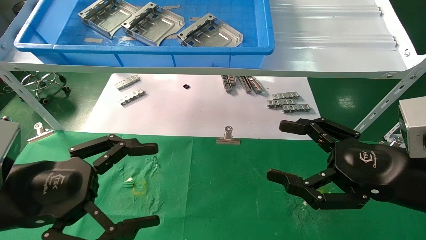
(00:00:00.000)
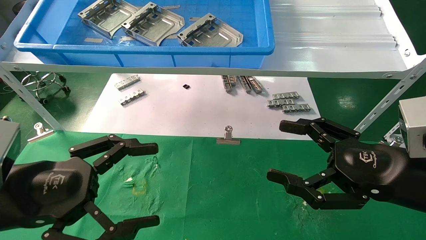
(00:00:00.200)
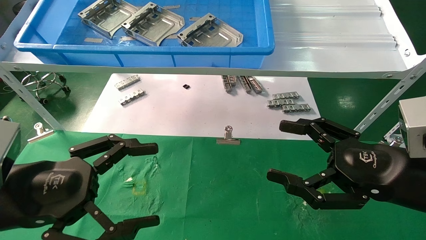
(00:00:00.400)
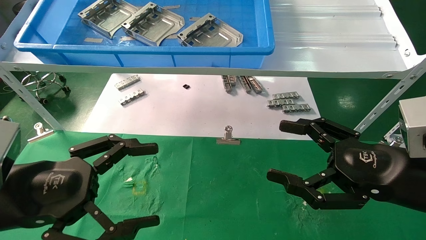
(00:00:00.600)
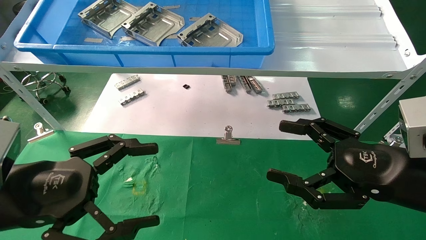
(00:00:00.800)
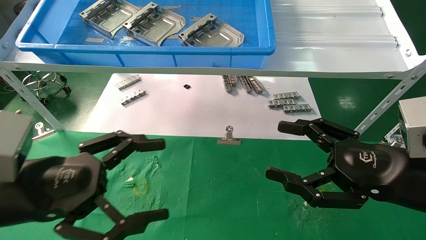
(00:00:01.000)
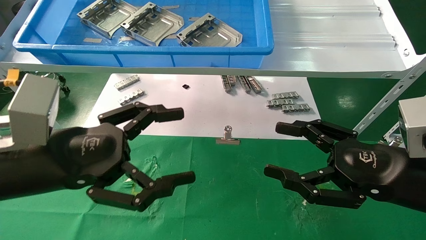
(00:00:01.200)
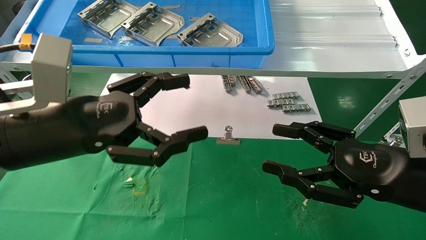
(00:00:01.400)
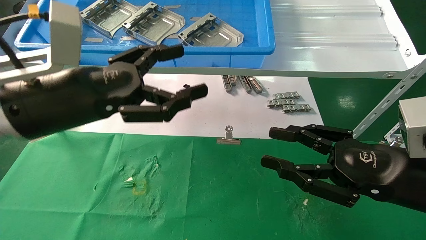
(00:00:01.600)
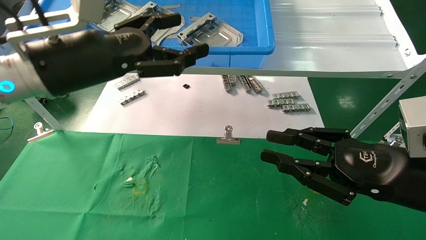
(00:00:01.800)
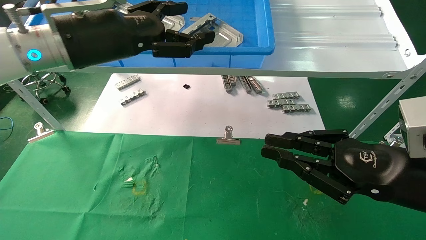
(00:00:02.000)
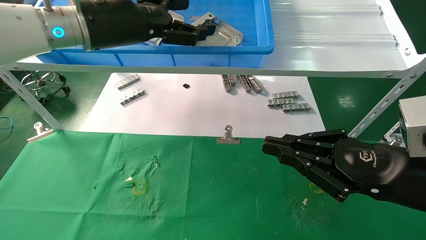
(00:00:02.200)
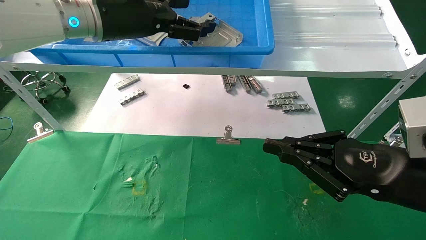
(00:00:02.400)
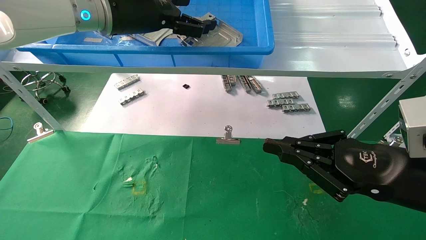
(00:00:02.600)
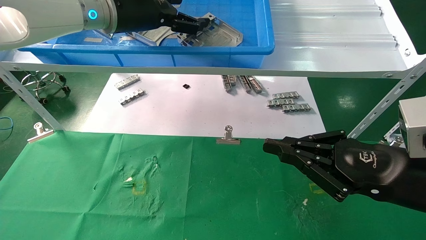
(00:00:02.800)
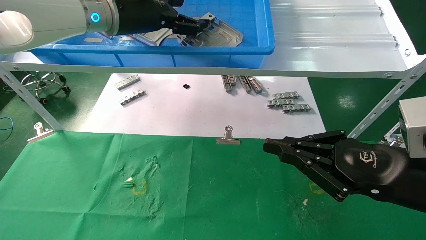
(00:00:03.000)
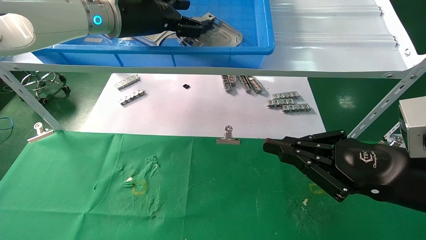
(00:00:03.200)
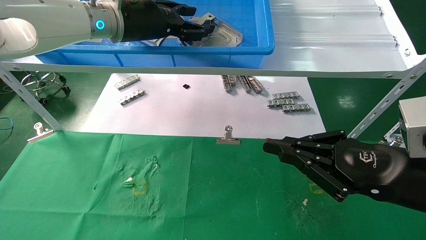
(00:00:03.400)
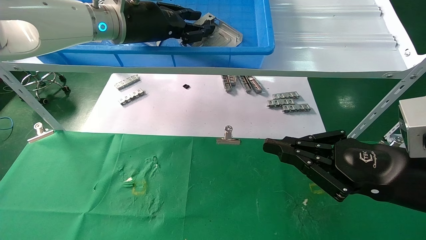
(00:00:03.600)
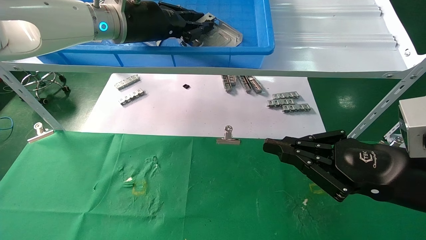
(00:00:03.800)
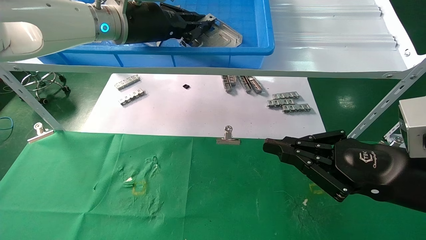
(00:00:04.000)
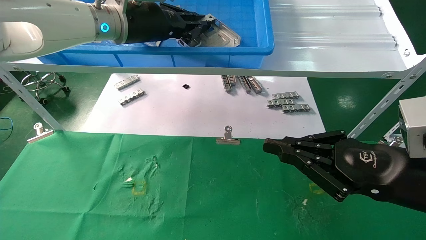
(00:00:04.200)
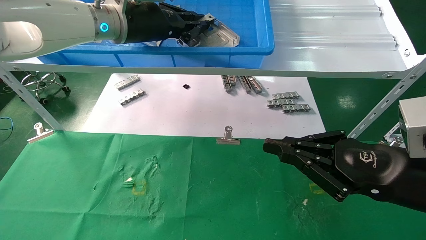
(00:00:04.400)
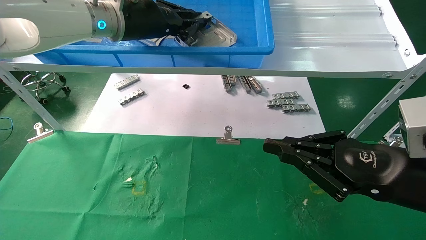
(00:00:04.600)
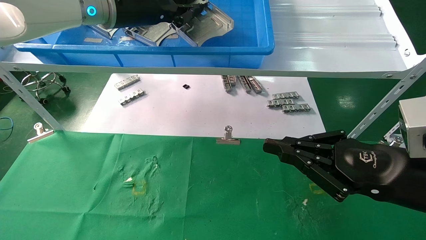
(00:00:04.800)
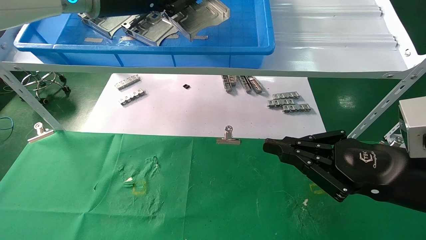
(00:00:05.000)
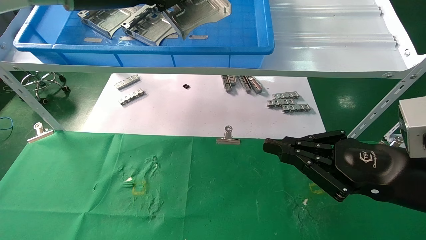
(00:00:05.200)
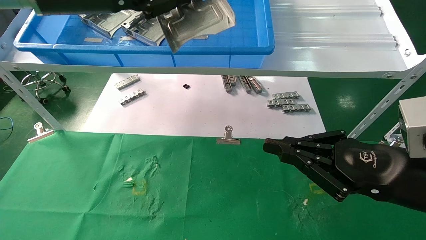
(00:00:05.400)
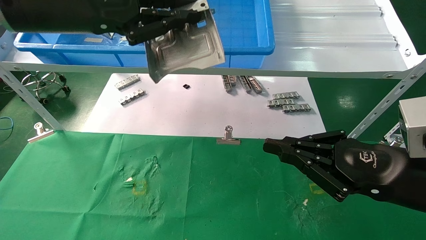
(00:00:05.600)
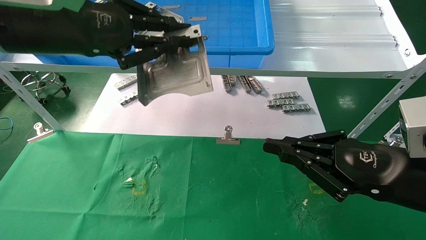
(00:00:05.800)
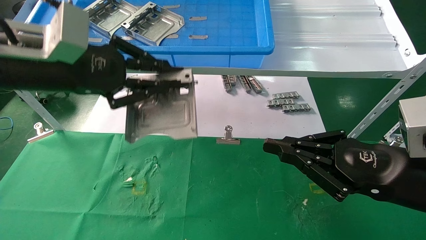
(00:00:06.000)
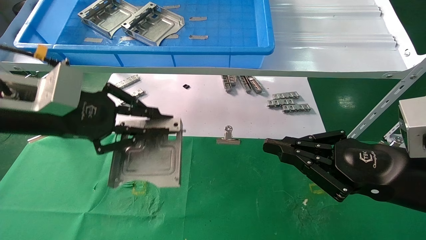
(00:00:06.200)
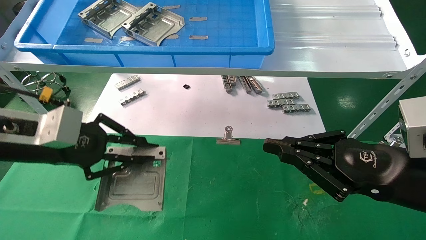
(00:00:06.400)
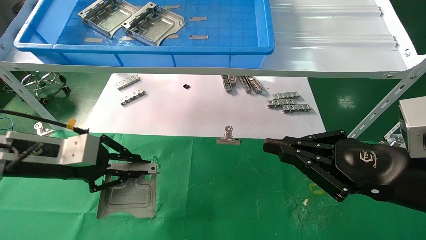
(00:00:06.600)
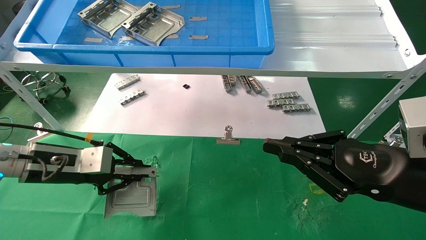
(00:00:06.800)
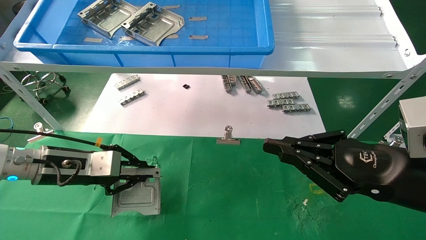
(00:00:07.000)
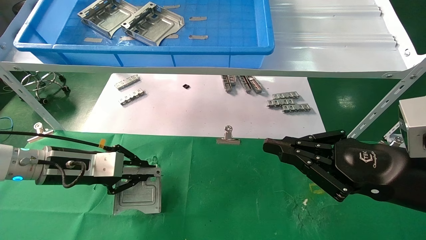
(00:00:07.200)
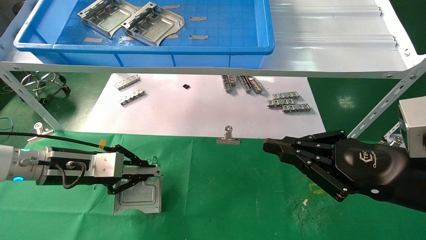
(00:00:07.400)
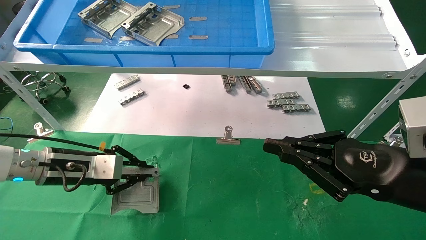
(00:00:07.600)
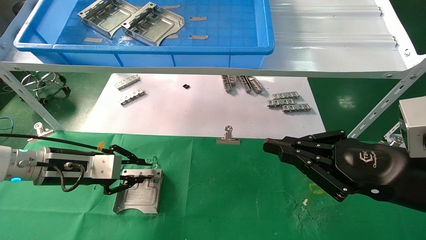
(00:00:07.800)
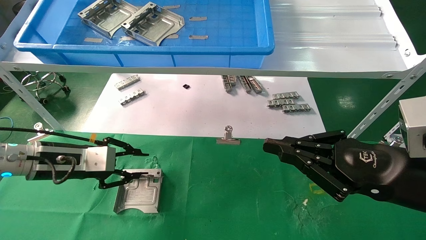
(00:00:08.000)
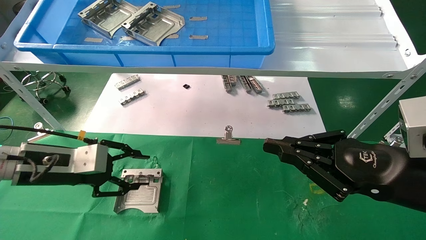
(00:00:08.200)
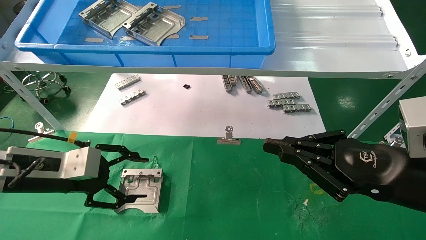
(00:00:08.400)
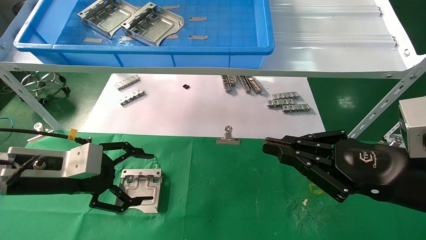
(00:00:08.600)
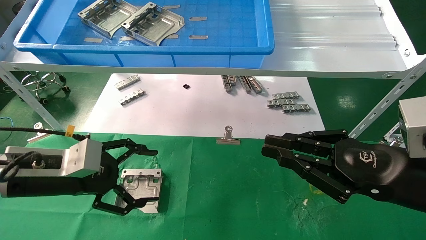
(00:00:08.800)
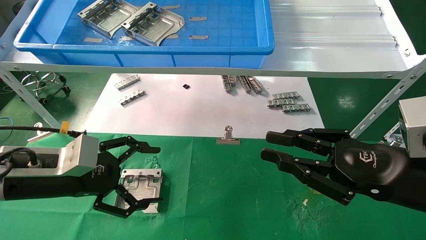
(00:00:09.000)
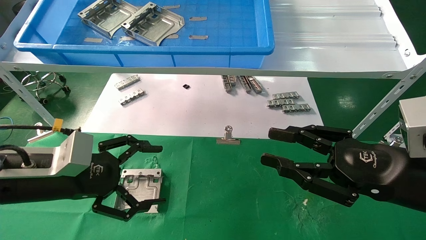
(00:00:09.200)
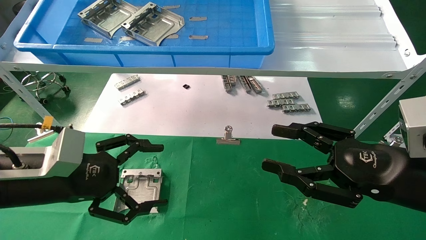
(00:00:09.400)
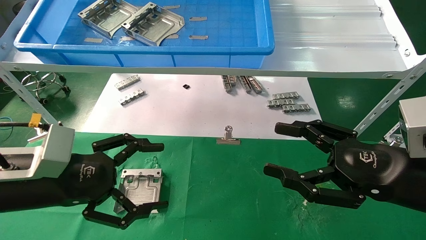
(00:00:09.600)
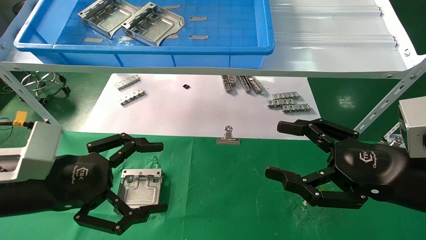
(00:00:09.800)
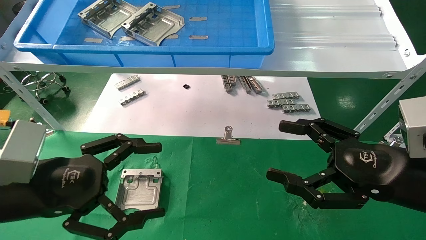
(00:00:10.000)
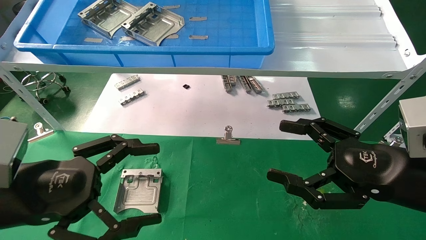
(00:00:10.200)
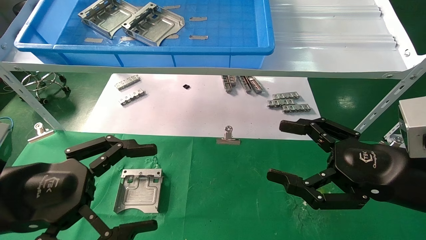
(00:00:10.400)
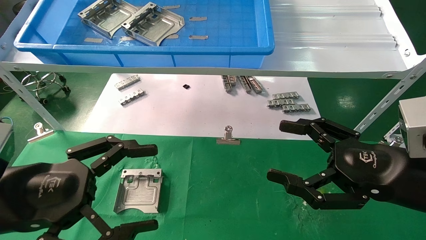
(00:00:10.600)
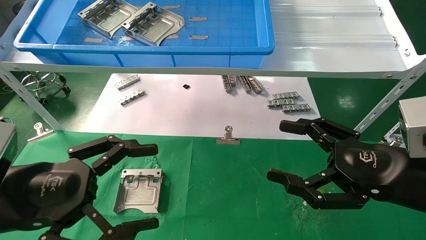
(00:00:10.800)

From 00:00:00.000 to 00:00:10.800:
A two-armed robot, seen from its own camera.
Task of the whole recording: use the mechanical arm to pick up the parts and place them on the table.
Step, from 00:00:01.400 to 00:00:04.200: Pick up the hard drive bracket from the feeding area.
Step, from 00:00:04.400 to 00:00:07.800: Place the hard drive bracket into the box.
From 00:00:00.000 to 00:00:01.600: The left gripper heads upward, forward and to the right, covering roughly 15 cm; the right gripper closes up.
From 00:00:01.600 to 00:00:03.000: The right gripper closes, while the left gripper moves forward and upward, approximately 20 cm.
From 00:00:03.000 to 00:00:04.600: The left gripper closes its fingers.
From 00:00:04.600 to 00:00:06.200: The left gripper heads backward, downward and to the left, covering approximately 20 cm.
From 00:00:06.200 to 00:00:07.800: The left gripper shifts approximately 15 cm downward and forward.
From 00:00:07.800 to 00:00:09.200: The left gripper travels backward by about 10 cm, and opens up.
From 00:00:09.200 to 00:00:10.800: The right gripper opens its fingers, while the left gripper is displaced backward by about 10 cm.
